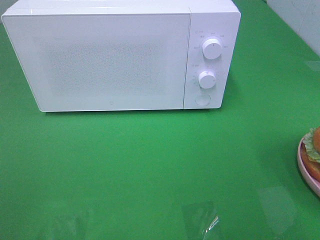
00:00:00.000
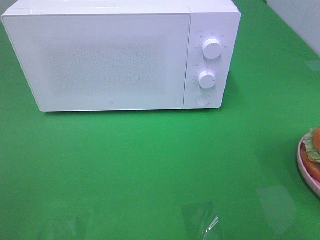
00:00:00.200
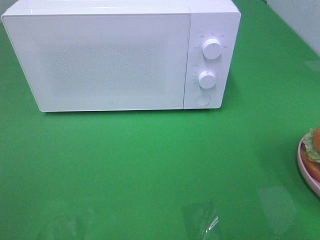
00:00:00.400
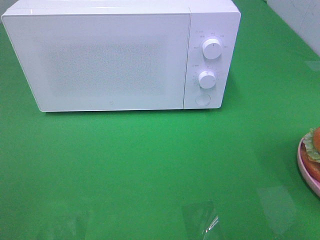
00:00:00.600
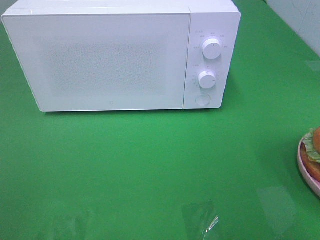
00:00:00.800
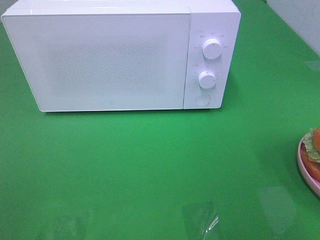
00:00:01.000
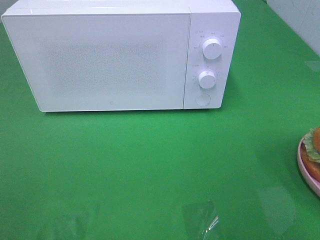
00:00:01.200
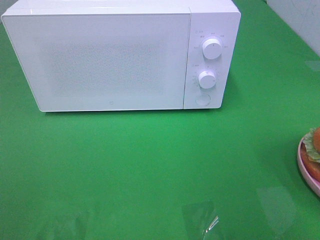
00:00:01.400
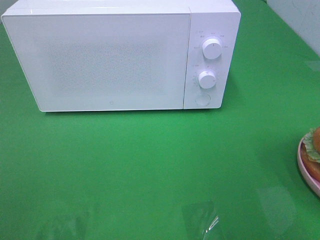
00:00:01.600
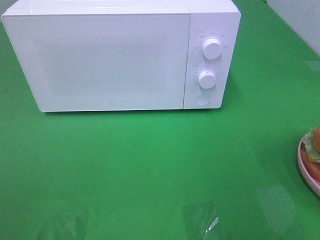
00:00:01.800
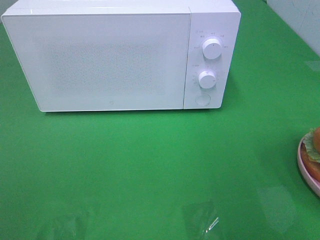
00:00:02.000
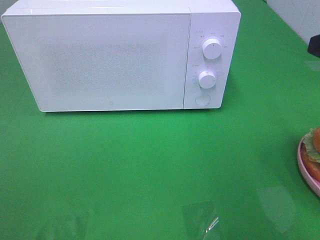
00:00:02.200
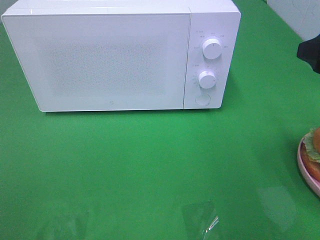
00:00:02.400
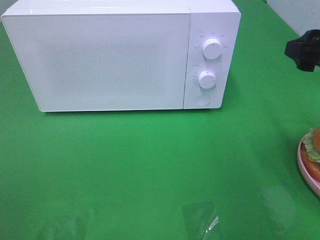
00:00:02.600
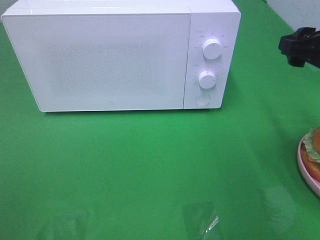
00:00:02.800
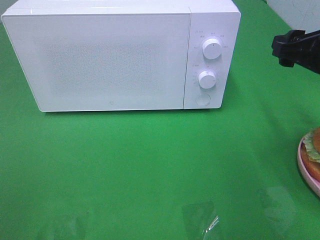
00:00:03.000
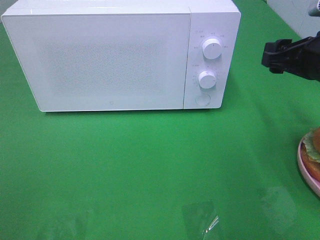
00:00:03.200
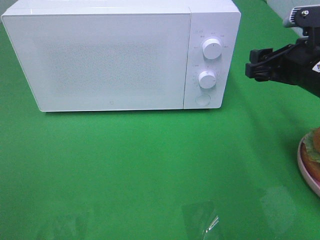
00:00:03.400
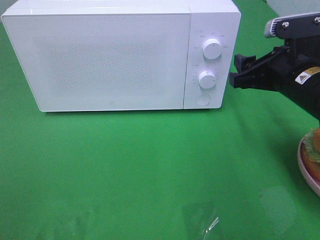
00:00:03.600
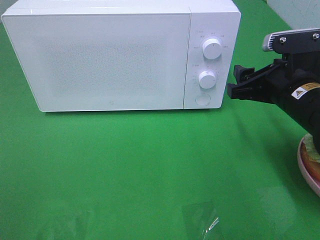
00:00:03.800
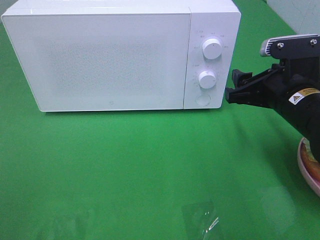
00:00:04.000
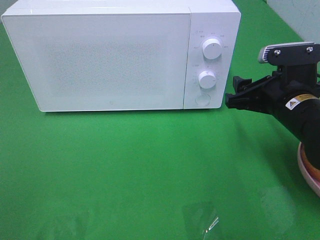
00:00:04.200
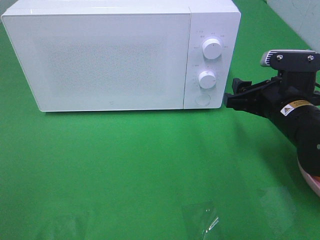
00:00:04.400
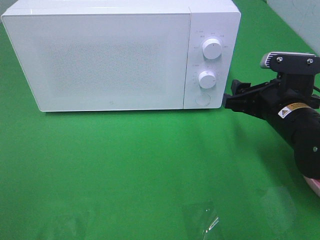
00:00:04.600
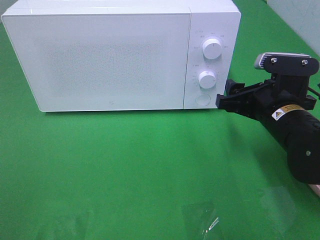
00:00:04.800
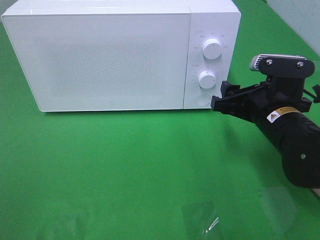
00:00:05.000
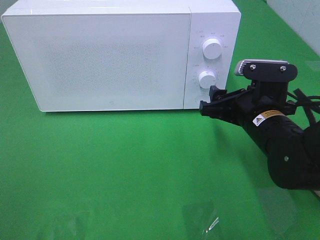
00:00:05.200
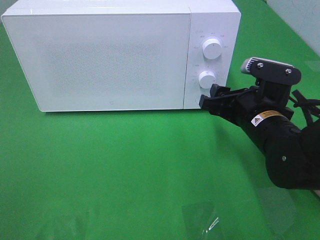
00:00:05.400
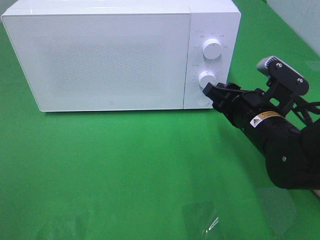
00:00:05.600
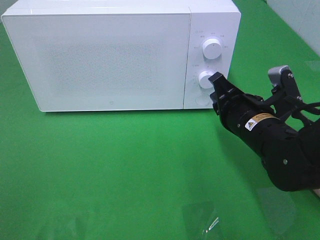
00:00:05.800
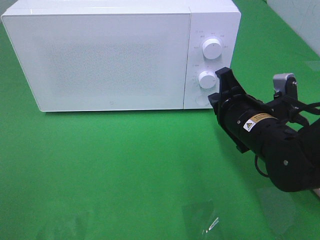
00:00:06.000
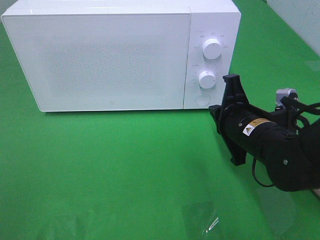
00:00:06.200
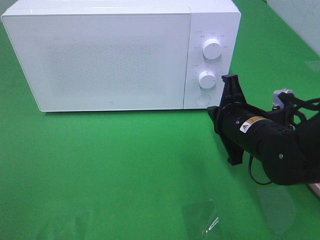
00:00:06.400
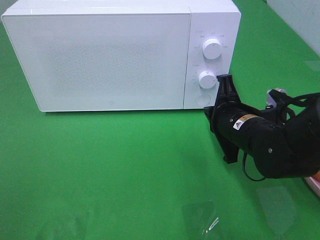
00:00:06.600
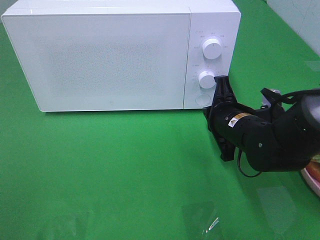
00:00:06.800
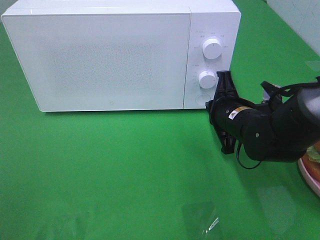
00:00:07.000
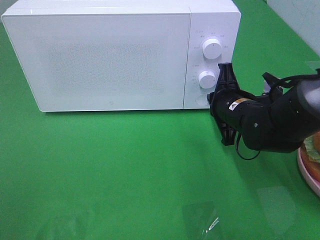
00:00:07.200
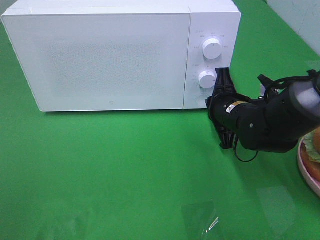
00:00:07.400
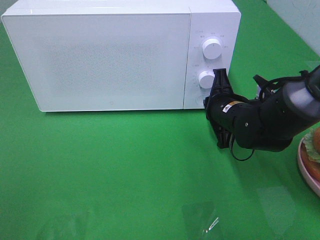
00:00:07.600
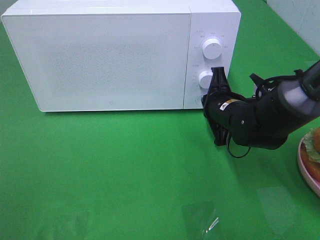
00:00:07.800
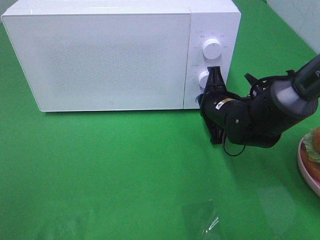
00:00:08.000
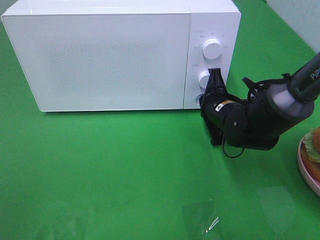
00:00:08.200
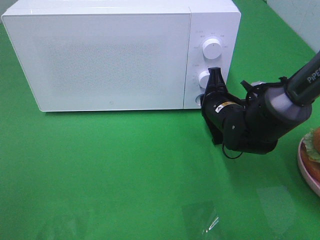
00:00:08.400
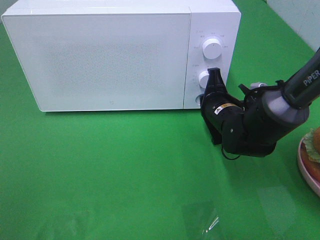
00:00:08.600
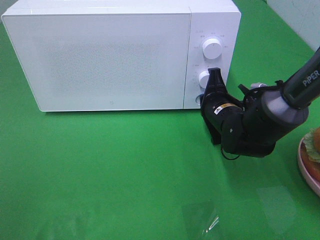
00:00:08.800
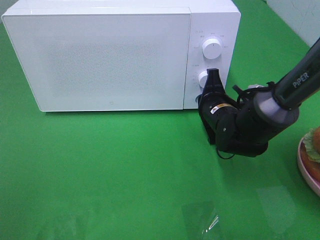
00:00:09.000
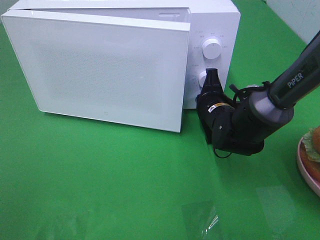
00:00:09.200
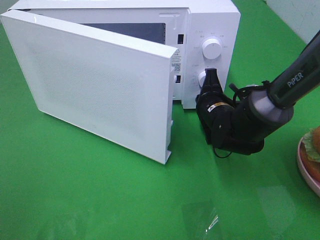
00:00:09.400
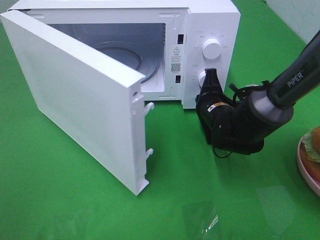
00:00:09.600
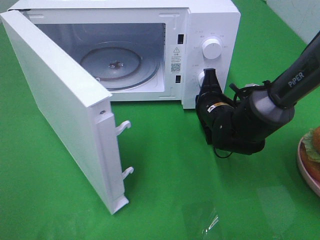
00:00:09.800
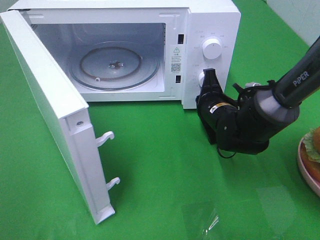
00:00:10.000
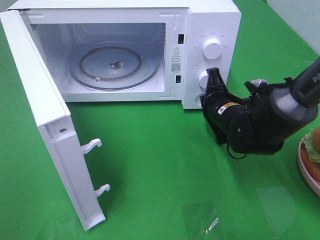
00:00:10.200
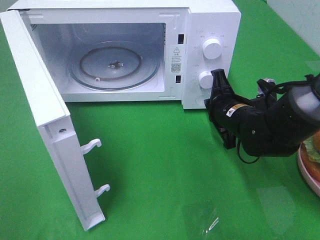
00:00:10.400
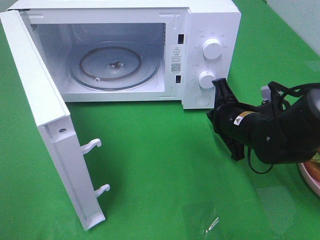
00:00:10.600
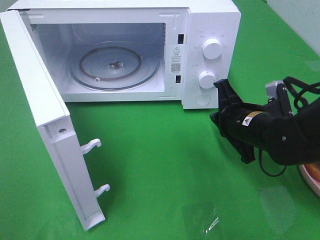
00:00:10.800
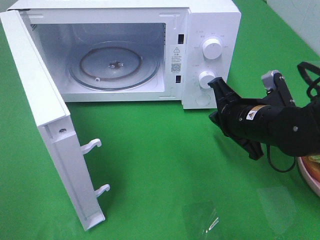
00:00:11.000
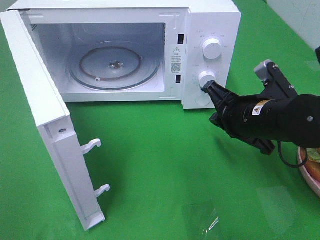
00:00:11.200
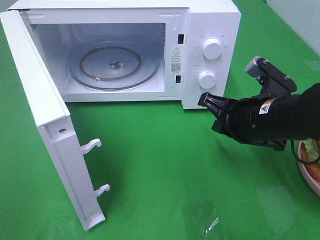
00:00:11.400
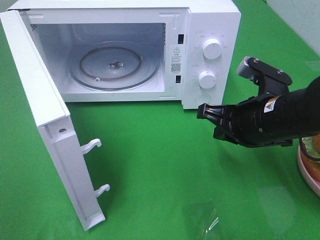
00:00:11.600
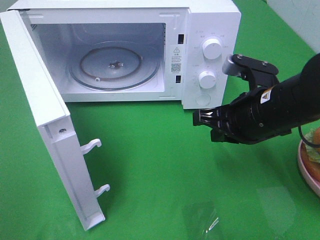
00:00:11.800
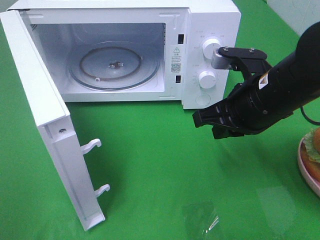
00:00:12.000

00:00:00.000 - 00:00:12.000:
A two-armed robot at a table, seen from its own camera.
Task of the whole recording: Heat the burger.
Step, 00:00:00.000 - 00:00:10.200: Right hand: press the switch.
00:00:01.600 - 00:00:03.000: The right gripper moves forward and downward, some 20 cm.
00:00:03.000 - 00:00:04.400: The right gripper moves downward and to the left, roughly 10 cm.
00:00:04.400 - 00:00:06.000: The right gripper shifts some 5 cm to the left, and closes.
00:00:06.000 - 00:00:07.600: The right gripper travels forward by roughly 5 cm.
00:00:07.600 - 00:00:09.000: The grippers stay close to where they were, moving slightly.
00:00:10.400 - 00:00:12.000: The right gripper is displaced upward and backward by some 15 cm.

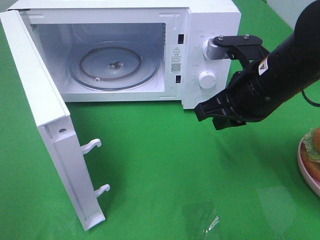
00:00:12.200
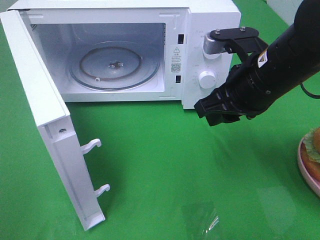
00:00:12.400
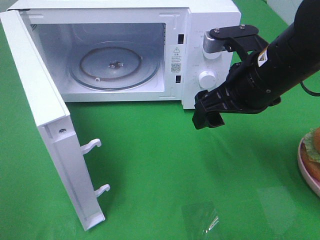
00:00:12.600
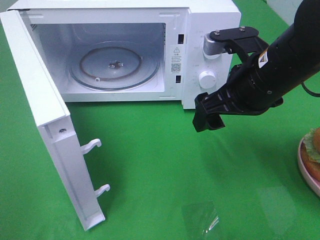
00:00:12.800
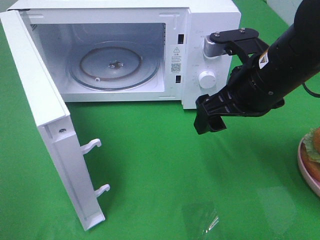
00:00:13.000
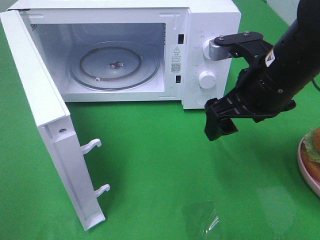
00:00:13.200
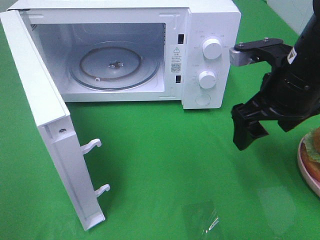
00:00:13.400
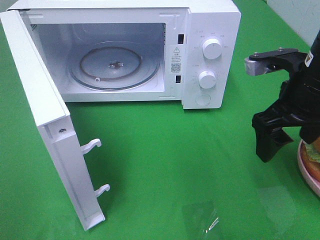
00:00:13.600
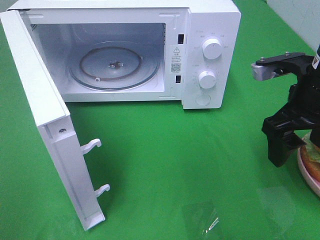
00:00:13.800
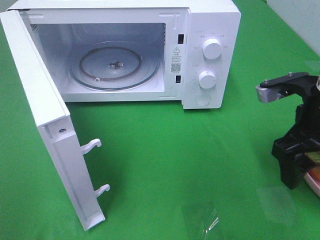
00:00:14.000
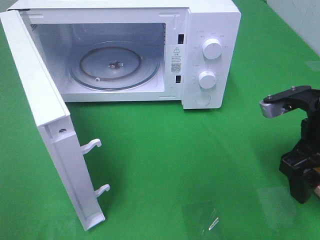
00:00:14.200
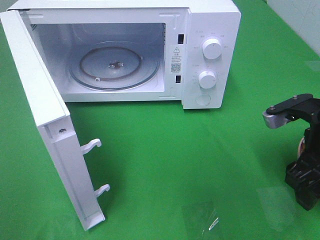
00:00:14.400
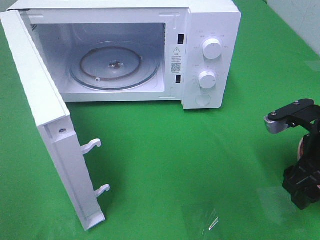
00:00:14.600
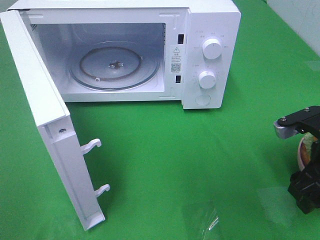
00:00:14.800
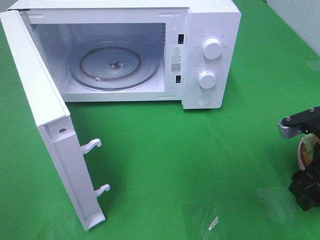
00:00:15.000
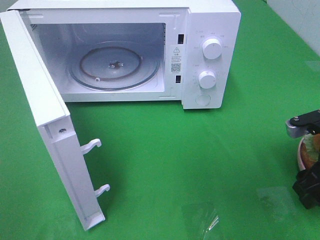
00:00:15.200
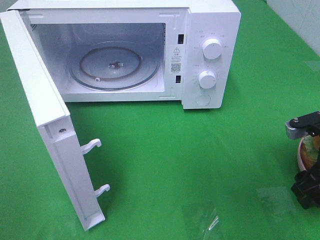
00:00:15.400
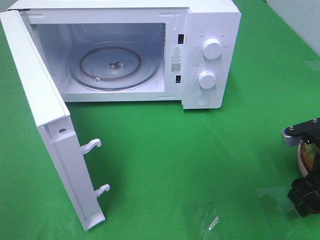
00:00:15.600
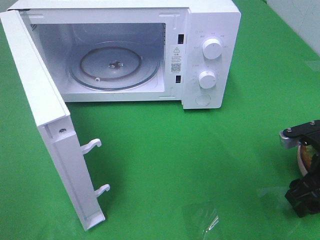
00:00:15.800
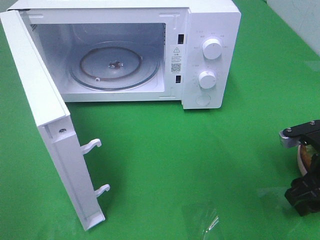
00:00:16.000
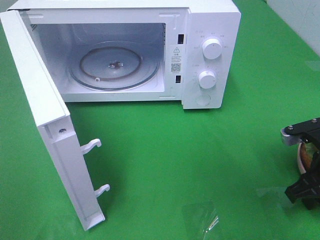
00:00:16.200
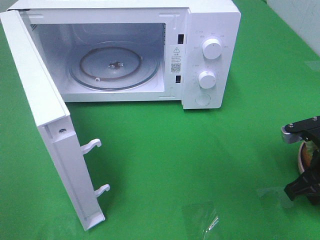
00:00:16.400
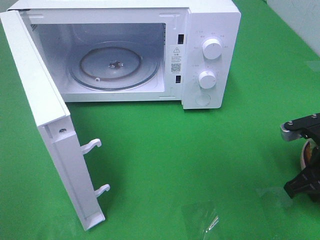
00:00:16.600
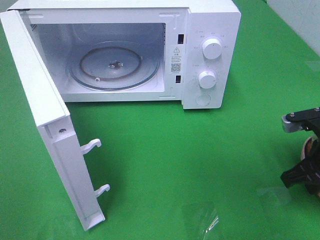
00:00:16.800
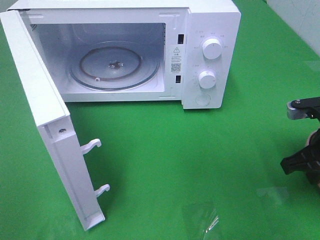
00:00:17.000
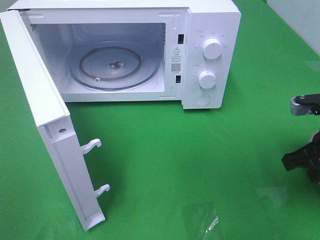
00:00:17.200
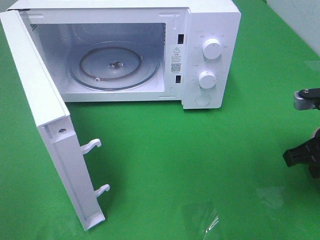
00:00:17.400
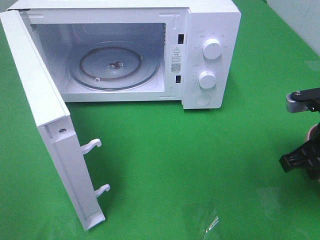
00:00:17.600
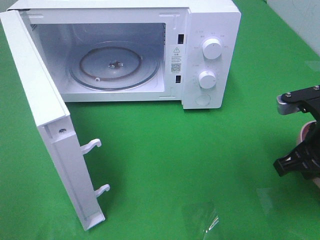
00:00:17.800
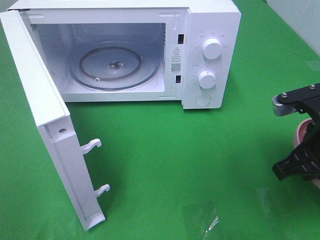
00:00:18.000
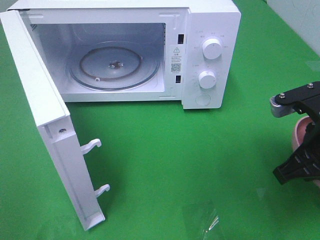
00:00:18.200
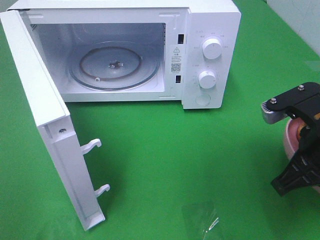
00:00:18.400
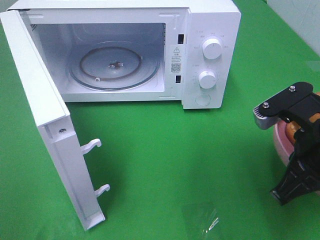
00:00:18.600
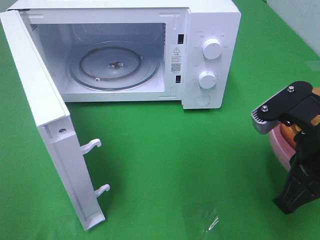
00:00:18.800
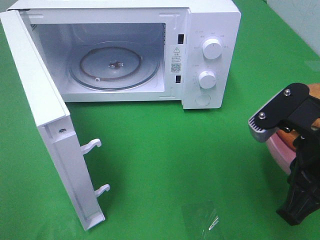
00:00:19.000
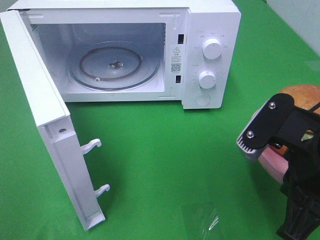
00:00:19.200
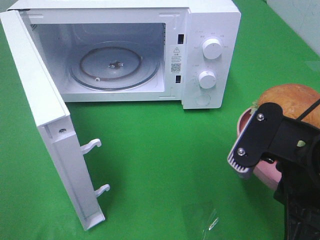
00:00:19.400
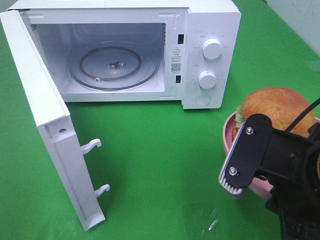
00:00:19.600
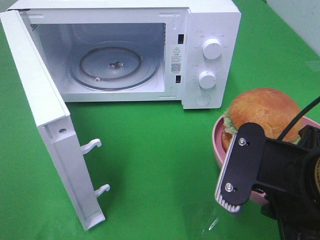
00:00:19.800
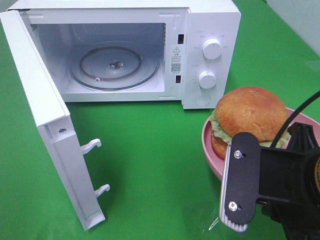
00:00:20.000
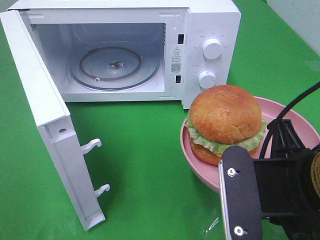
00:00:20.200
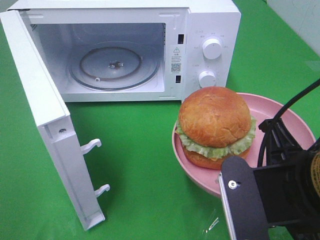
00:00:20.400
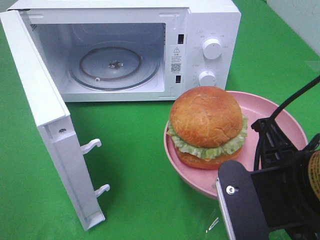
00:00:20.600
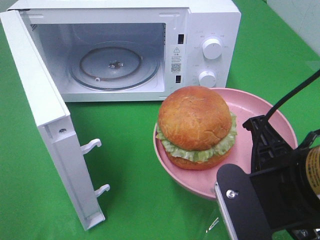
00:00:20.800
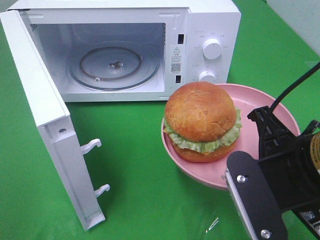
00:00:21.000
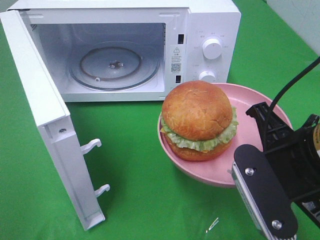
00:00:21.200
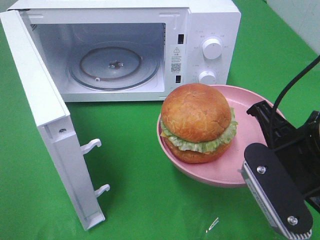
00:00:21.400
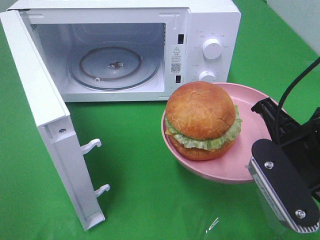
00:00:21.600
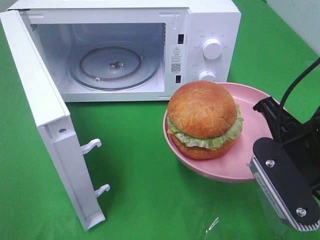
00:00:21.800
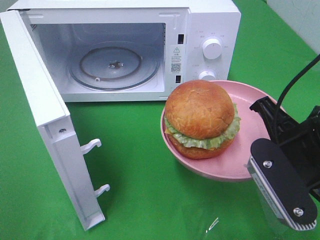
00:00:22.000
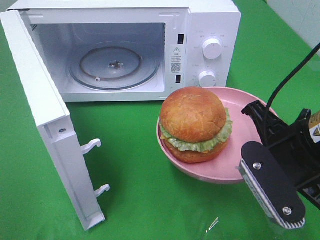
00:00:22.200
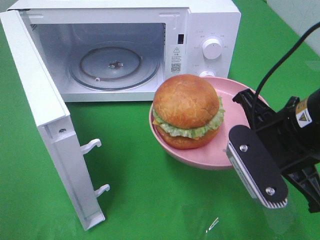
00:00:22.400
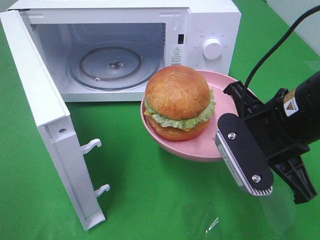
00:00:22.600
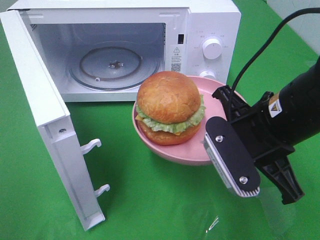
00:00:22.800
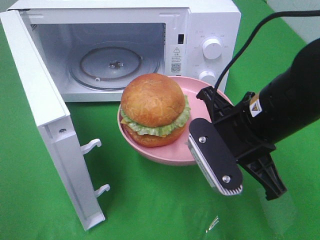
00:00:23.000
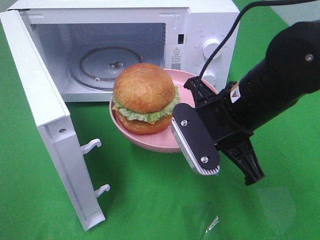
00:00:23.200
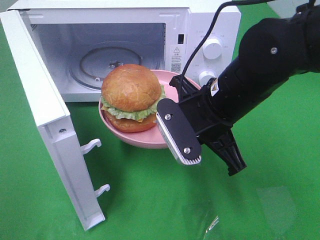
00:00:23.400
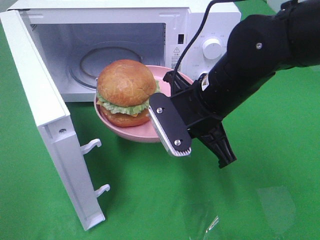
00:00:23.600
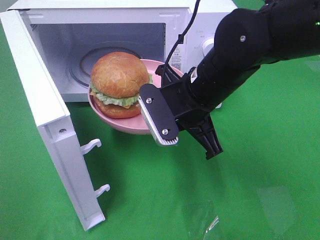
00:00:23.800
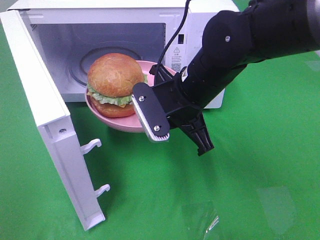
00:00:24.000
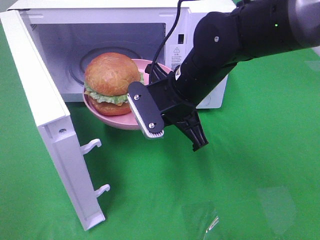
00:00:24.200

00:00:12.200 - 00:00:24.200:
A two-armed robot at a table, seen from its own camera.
Task of the whole recording: Heat the burger.
Step, 00:00:12.200 - 00:00:16.400: Right hand: grab the plate with the hamburger.
00:00:12.200 - 00:00:13.800: The right gripper goes about 5 cm to the right, and opens.
00:00:13.800 - 00:00:15.200: The right gripper goes about 10 cm downward and to the right.
00:00:15.200 - 00:00:16.600: The right gripper closes.
00:00:16.600 - 00:00:18.200: The right gripper heads upward, covering roughly 5 cm.
00:00:18.200 - 00:00:19.800: The right gripper shifts approximately 10 cm backward and to the left.
00:00:21.200 - 00:00:22.600: The right gripper moves approximately 5 cm.
00:00:22.600 - 00:00:24.200: The right gripper is displaced forward and to the left by approximately 15 cm.
